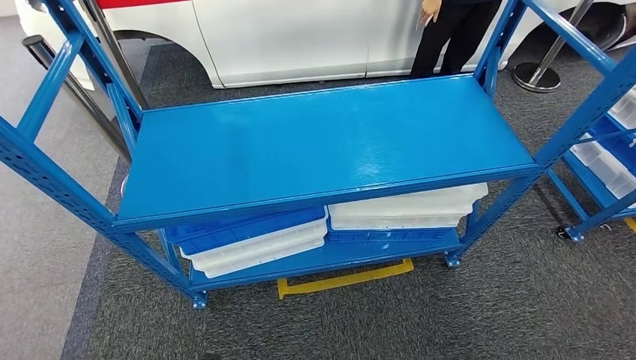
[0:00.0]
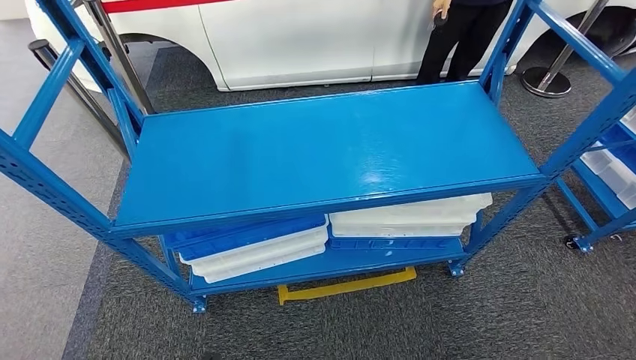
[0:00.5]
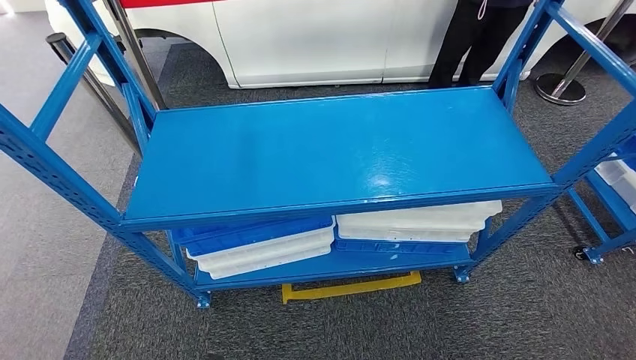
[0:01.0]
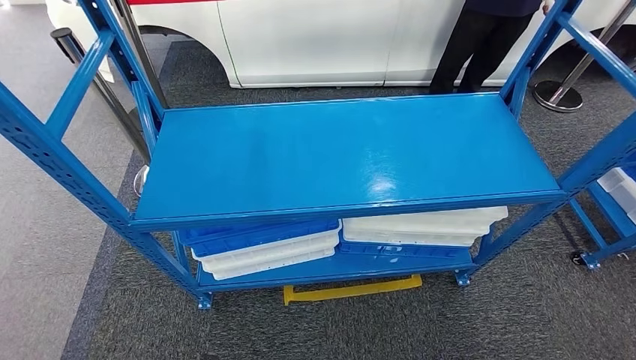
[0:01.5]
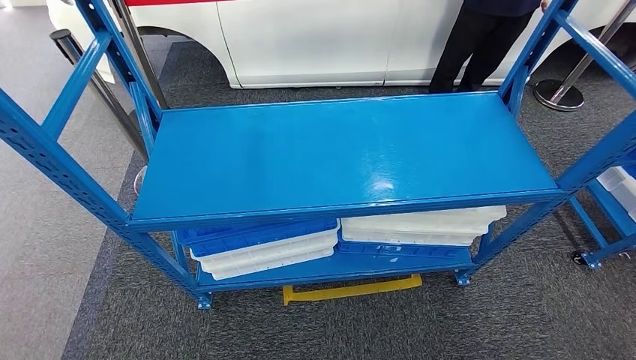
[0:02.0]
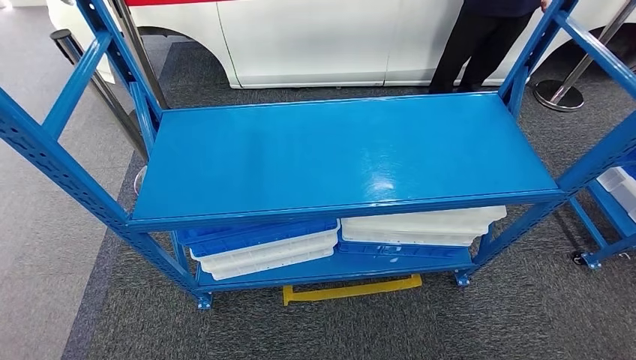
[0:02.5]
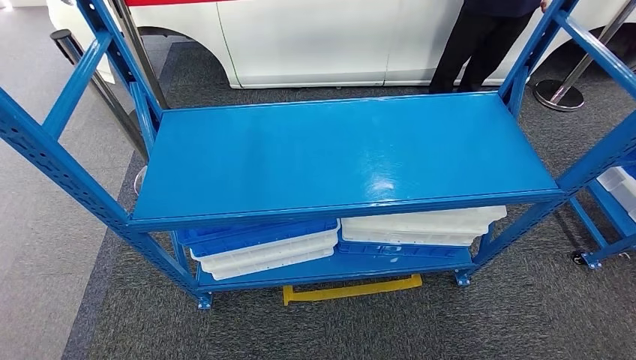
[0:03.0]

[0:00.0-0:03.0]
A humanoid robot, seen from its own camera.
Step, 0:00.0 to 0:02.5: Move to the initial position of the shelf.
0:01.5 to 0:03.0: The left hand goes roughly 5 cm to the left. The right hand heads to the right, covering roughly 5 cm.
